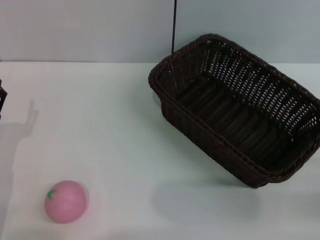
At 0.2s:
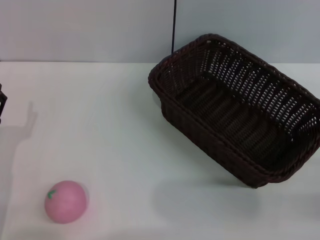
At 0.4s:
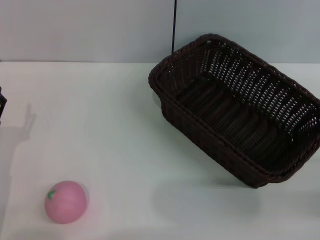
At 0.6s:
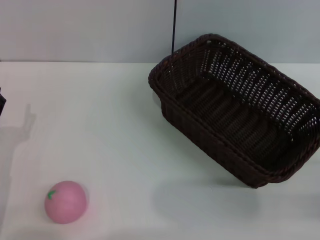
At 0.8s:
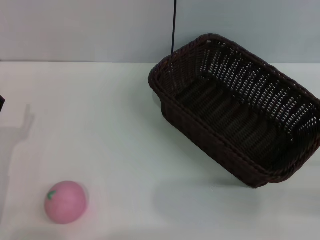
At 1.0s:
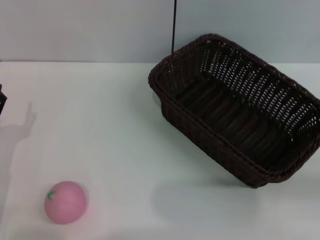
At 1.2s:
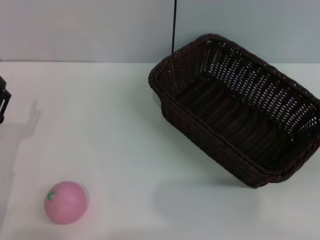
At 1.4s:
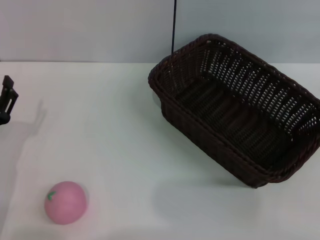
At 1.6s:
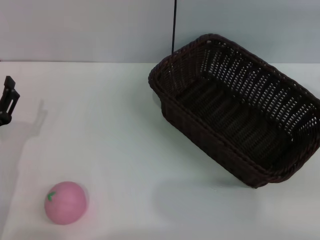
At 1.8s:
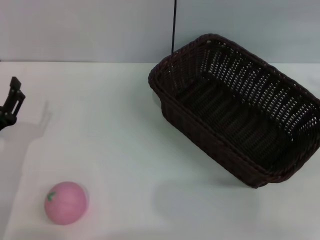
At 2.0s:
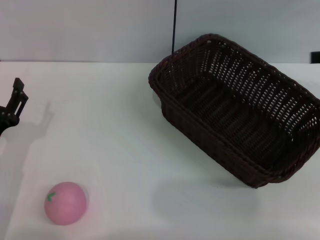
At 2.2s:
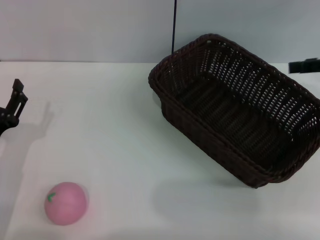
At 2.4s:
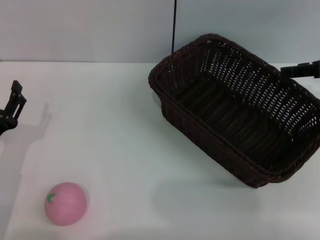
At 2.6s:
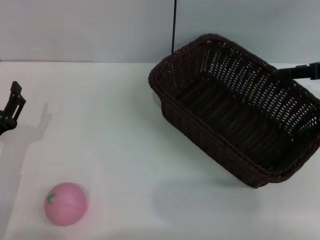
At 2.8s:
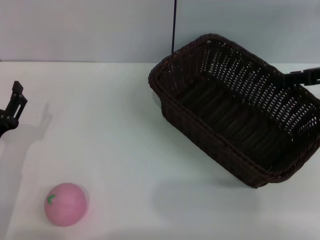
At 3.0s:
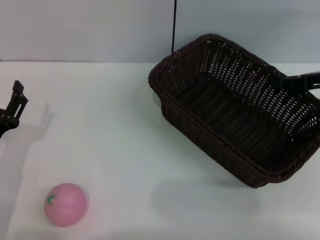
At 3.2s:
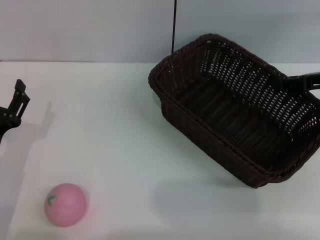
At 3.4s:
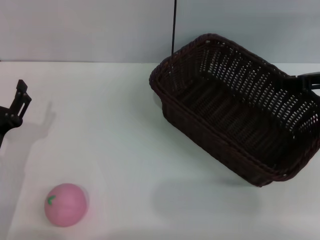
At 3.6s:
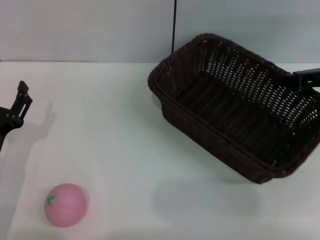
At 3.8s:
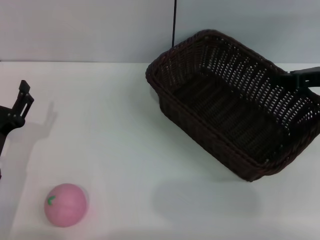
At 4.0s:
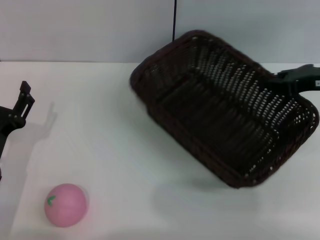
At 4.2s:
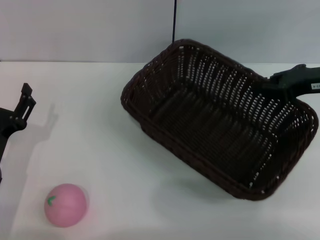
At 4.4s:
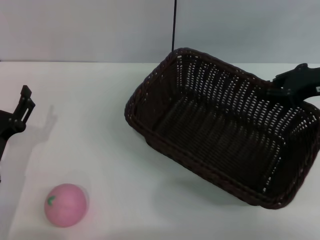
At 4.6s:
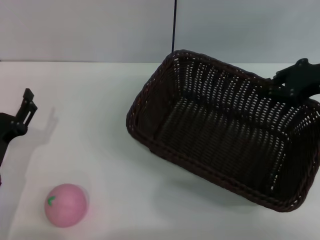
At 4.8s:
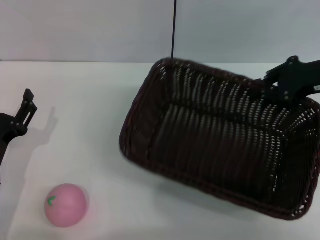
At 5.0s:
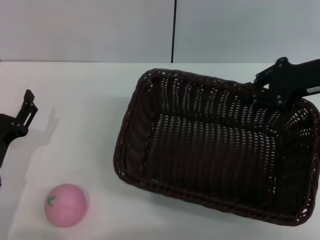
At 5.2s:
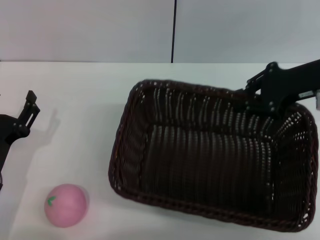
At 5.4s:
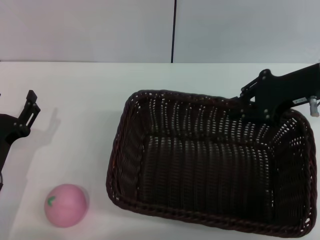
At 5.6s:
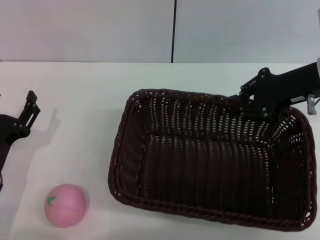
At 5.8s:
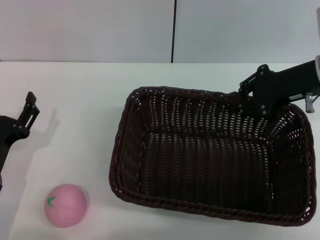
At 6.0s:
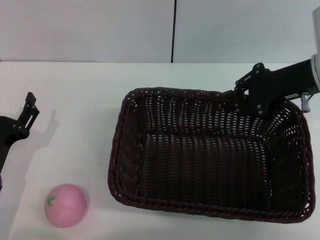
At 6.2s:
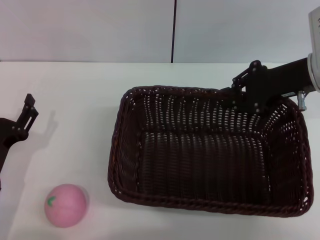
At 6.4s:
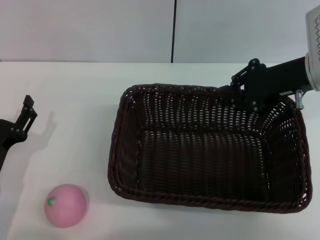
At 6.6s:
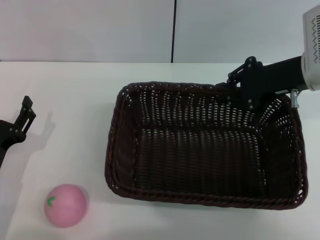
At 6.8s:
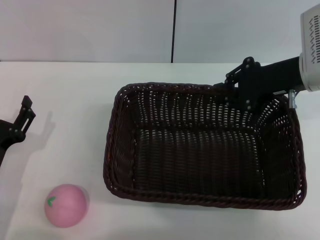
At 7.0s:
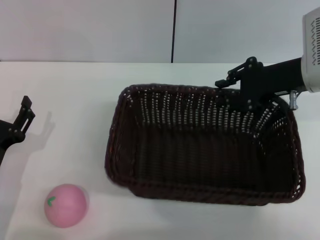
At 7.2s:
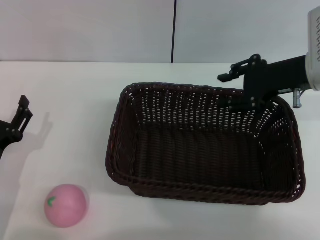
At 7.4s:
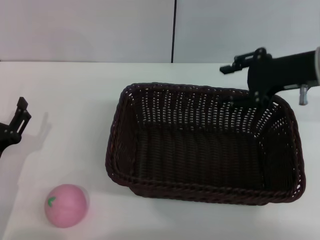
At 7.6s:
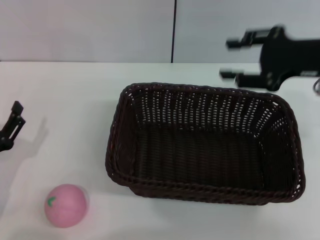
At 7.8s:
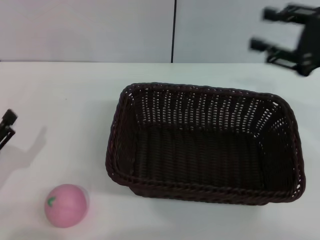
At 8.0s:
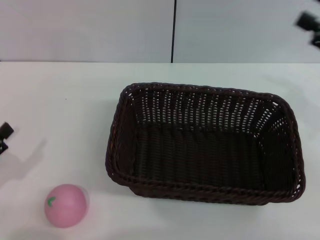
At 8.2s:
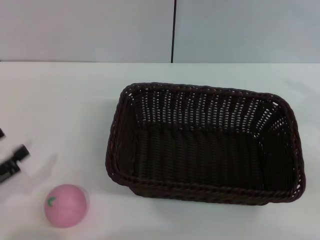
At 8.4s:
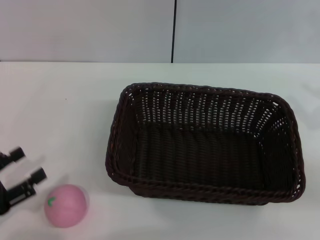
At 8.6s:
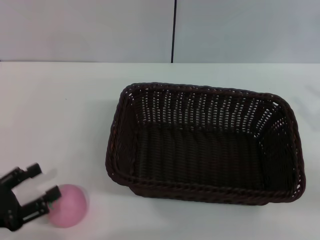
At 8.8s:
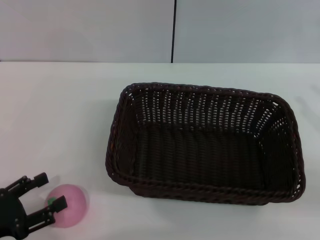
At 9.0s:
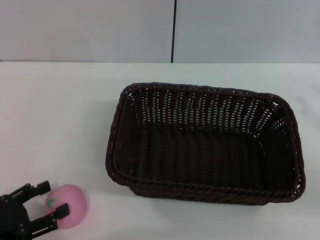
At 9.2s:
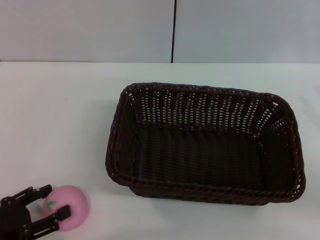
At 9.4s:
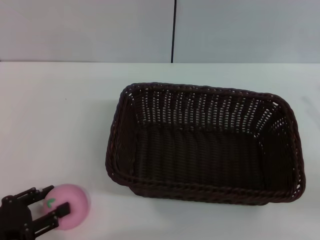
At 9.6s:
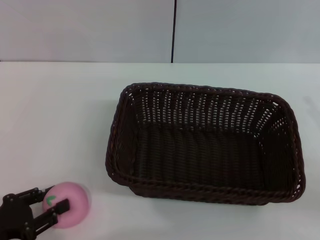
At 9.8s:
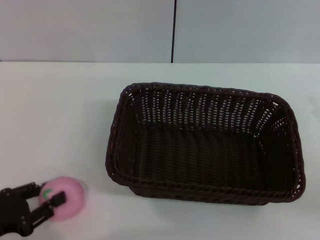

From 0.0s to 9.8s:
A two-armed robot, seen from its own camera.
Step, from 0.0s to 4.4s: Pick up the dark basket with the right gripper.
Step, from 4.6s to 7.2s: Place the dark basket in the center of view with the right gripper.
From 1.4s to 2.8s: The right gripper heads forward and to the left, covering some 15 cm.
From 2.8s to 4.2s: The right gripper closes up.
From 5.6s to 7.0s: The grippers move only a little.
From 7.0s to 8.4s: The left gripper heads to the left and backward, covering approximately 10 cm. Meanwhile the right gripper is displaced backward and to the right by approximately 20 cm, and opens its fingers.
From 8.4s to 9.8s: The left gripper closes up.

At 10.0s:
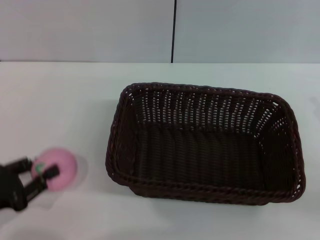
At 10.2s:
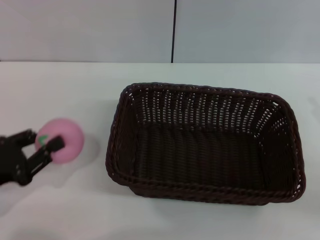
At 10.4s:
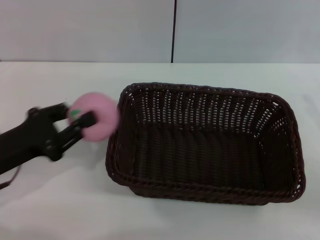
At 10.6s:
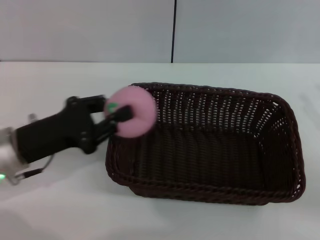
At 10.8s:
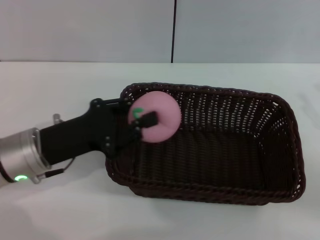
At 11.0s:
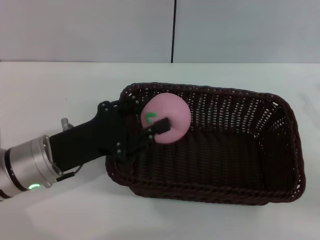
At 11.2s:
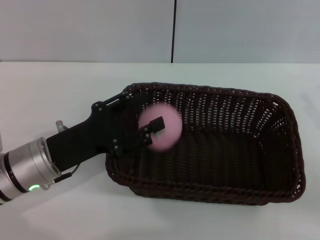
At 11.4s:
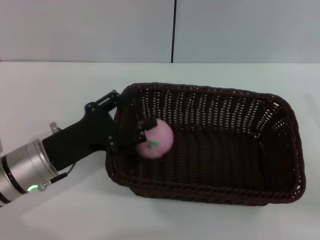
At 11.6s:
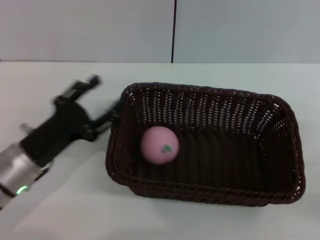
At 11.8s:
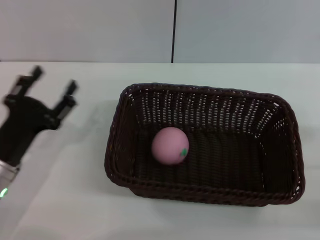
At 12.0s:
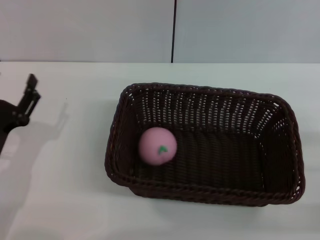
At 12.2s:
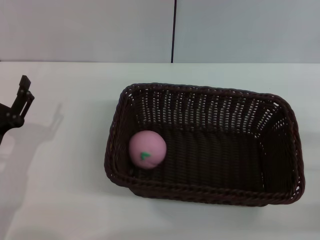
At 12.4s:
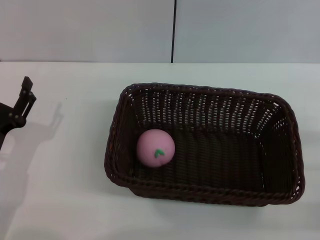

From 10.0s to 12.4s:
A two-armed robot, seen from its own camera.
Step, from 10.4s to 11.4s: Place the peach into the basket with the left gripper.
From 10.0s to 11.2s: The left gripper shifts some 15 cm to the right and forward.
From 11.2s to 12.4s: The right gripper shifts by some 5 cm; the left gripper shifts roughly 5 cm to the left, and opens.
